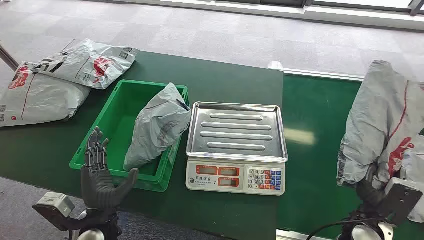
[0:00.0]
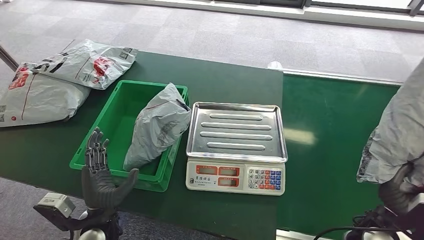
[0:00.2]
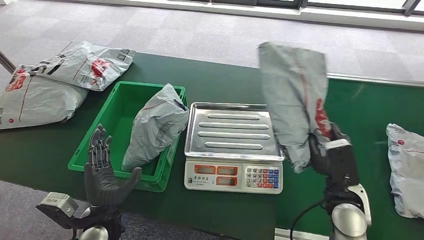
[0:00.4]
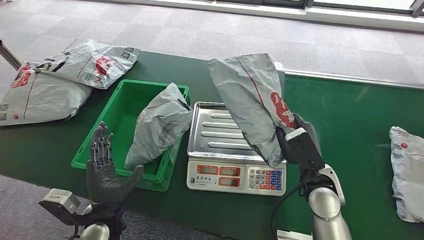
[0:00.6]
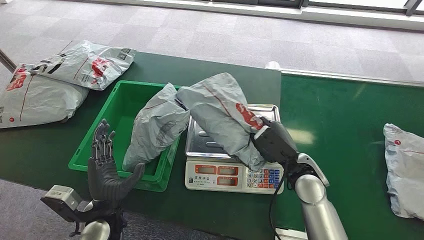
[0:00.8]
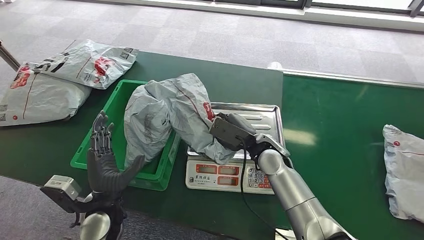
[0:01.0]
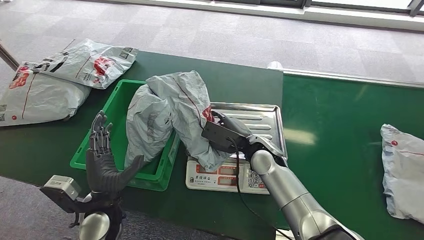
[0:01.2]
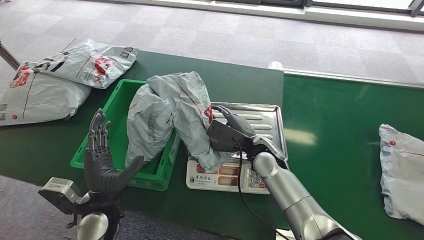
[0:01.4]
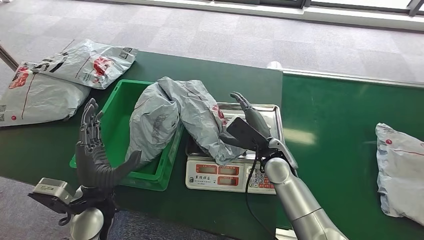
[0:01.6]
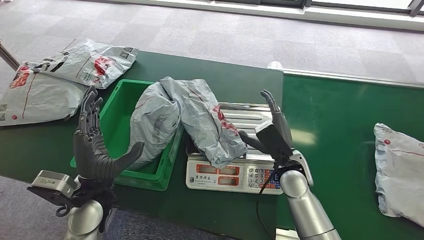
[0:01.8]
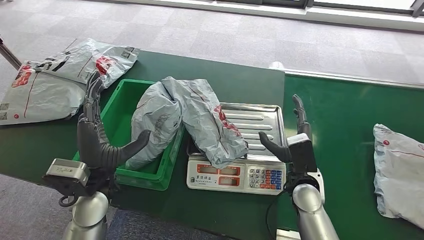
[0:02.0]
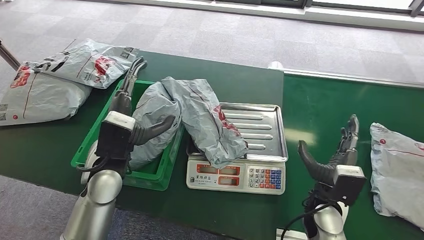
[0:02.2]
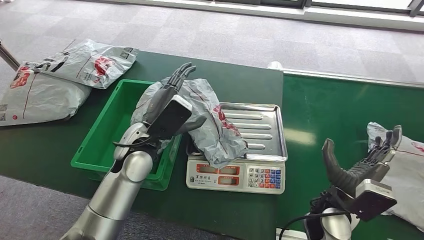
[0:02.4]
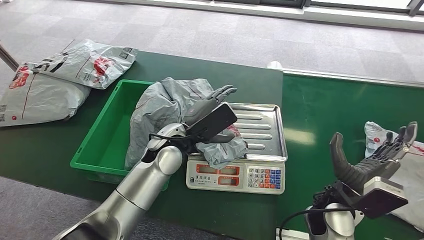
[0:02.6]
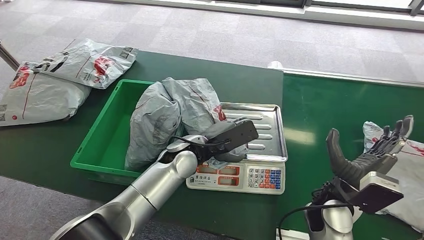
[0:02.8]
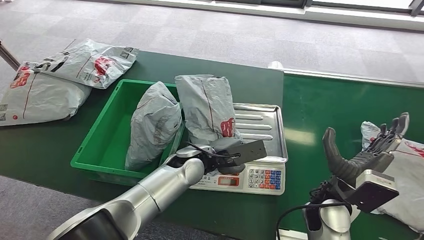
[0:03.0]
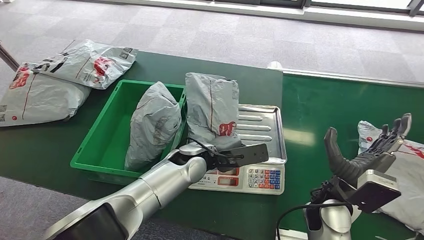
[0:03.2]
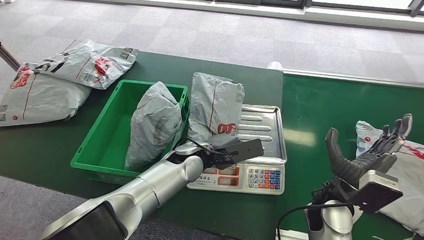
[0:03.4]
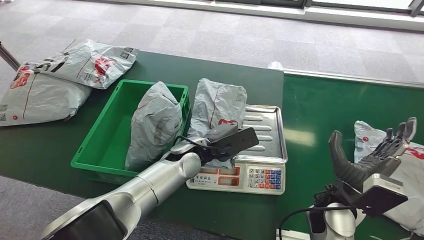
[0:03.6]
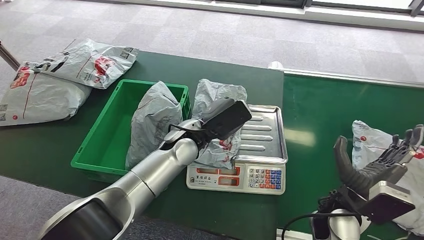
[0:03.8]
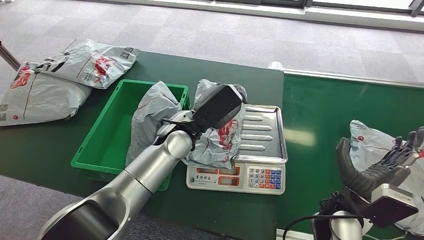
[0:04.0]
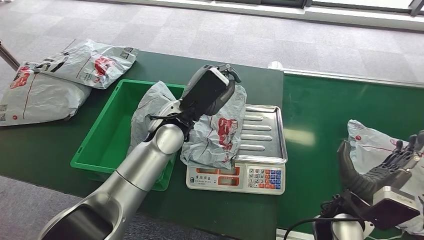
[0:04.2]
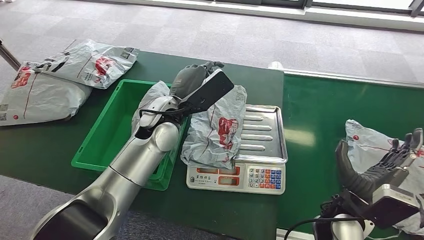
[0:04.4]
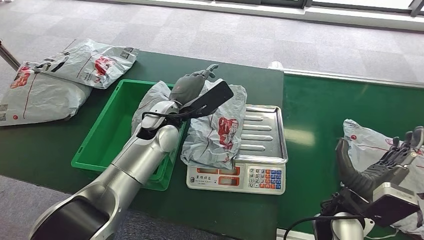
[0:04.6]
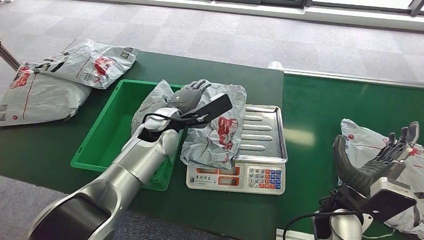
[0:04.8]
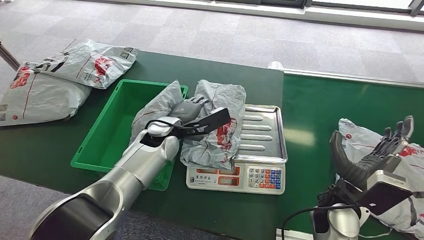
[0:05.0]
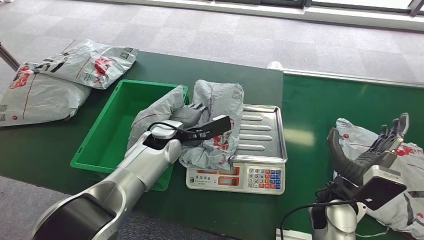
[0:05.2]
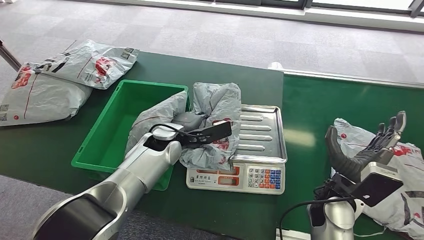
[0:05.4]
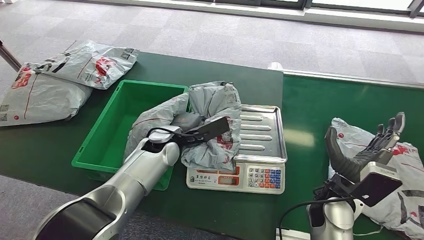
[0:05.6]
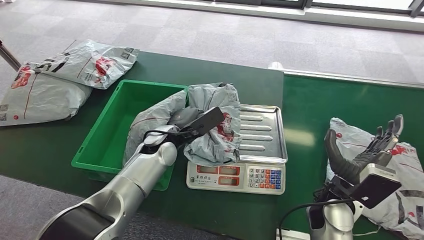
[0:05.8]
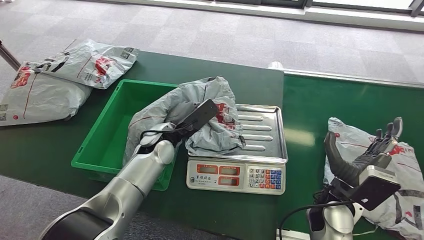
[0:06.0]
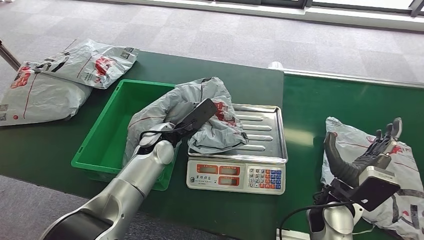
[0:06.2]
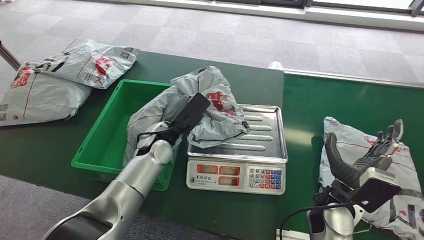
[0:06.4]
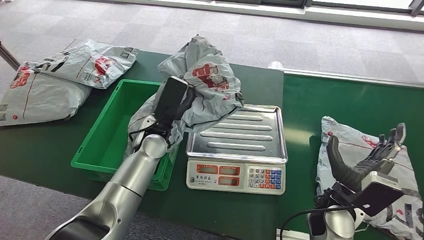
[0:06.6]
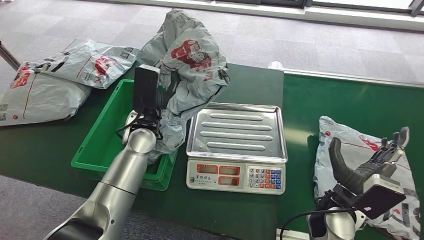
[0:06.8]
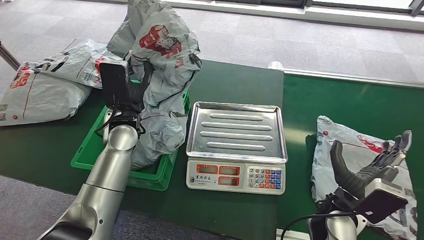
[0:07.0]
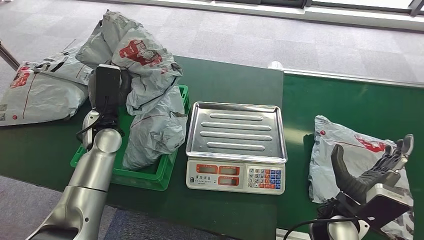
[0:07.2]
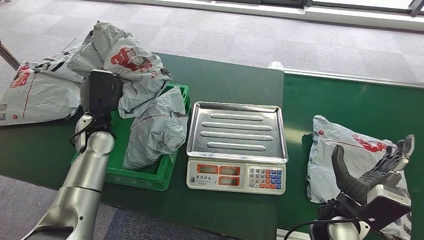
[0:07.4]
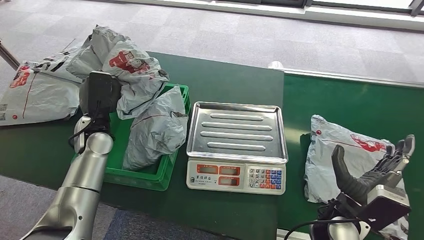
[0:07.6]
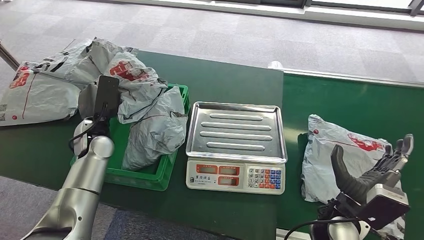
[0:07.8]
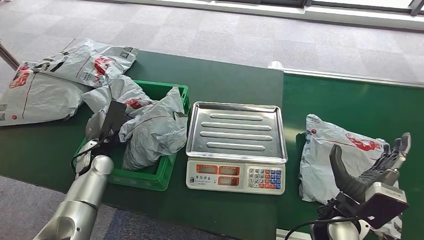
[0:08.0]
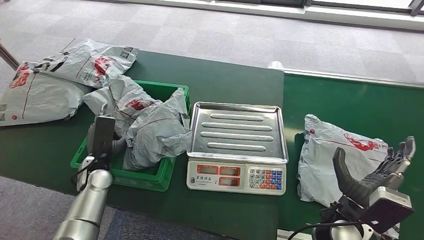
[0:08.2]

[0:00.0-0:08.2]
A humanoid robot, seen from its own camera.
Task of the whole recording: Weigh the package on the weighing device and place it in the left basket.
Step, 0:00.0 to 0:00.2: Pick up the package from the conveyor belt.
Step, 0:00.4 to 0:01.4: Place the package onto the inbound machine.
Step, 0:03.6 to 0:07.0: Pick up the package from the inbound machine.
Step, 0:07.2 to 0:08.2: Place the package into the parcel locker.
